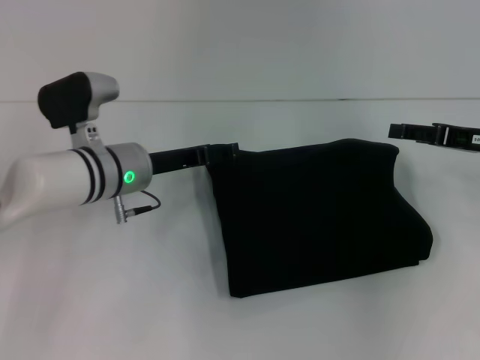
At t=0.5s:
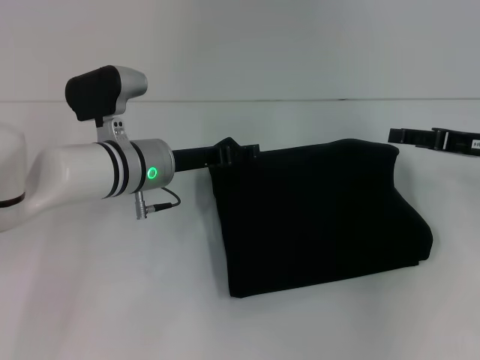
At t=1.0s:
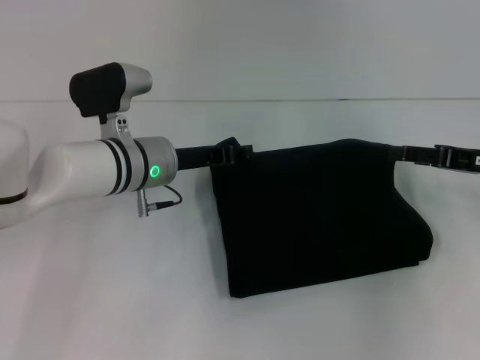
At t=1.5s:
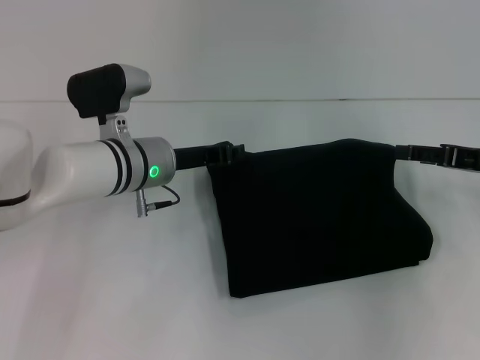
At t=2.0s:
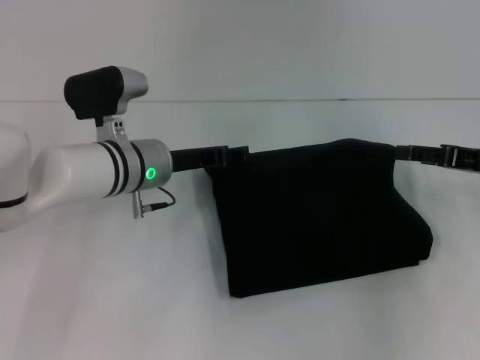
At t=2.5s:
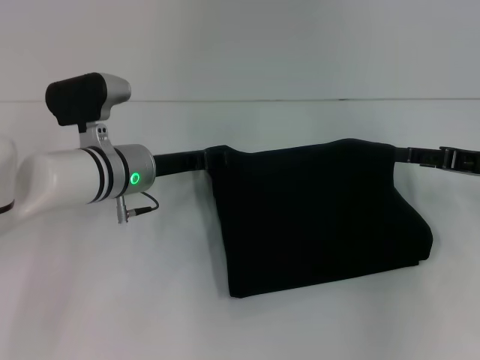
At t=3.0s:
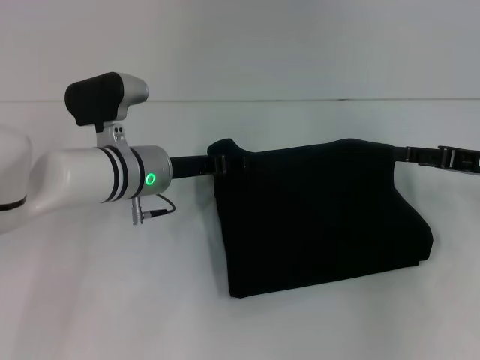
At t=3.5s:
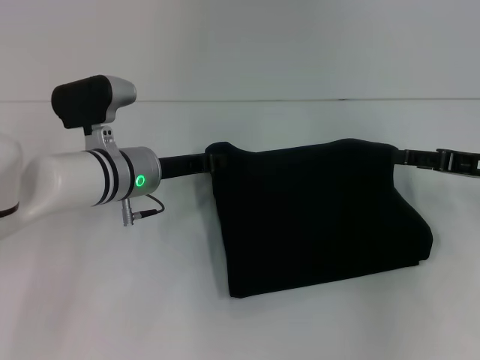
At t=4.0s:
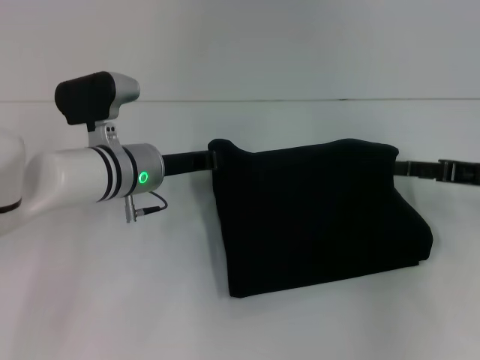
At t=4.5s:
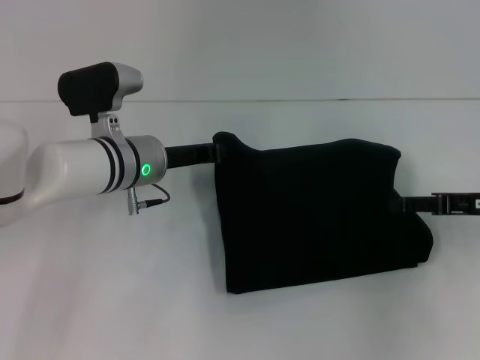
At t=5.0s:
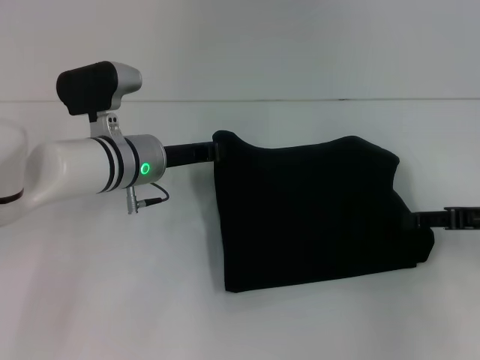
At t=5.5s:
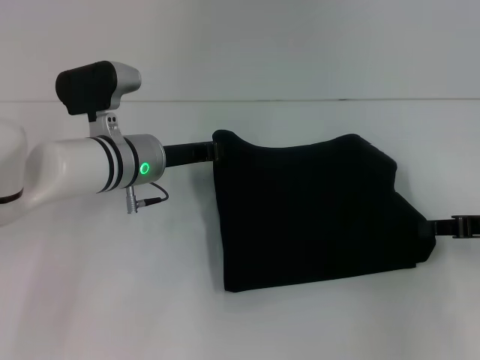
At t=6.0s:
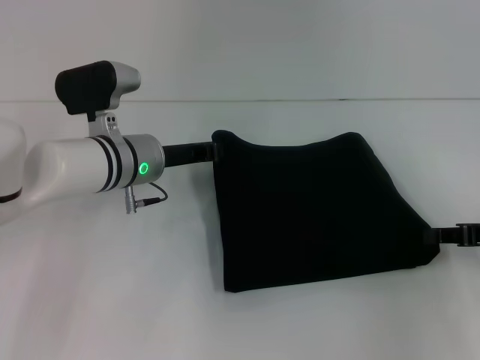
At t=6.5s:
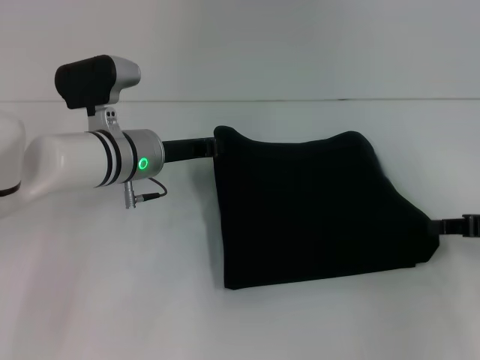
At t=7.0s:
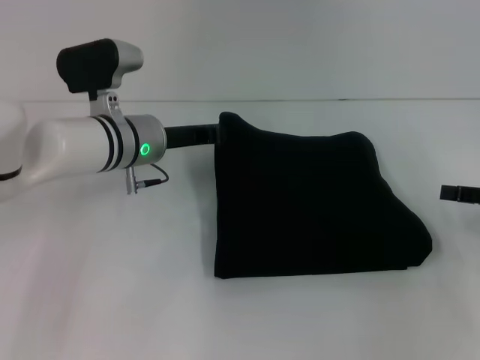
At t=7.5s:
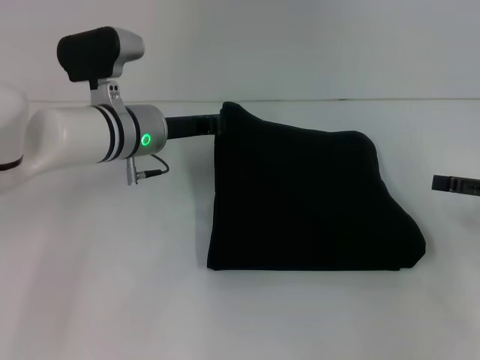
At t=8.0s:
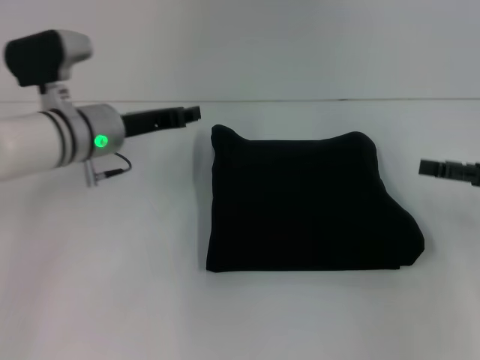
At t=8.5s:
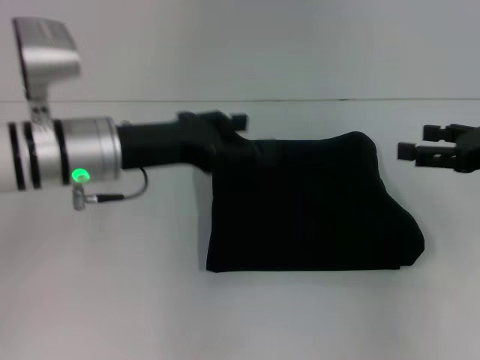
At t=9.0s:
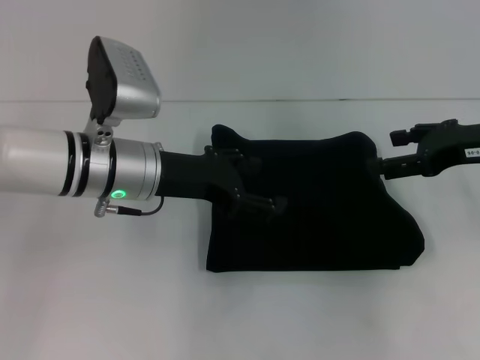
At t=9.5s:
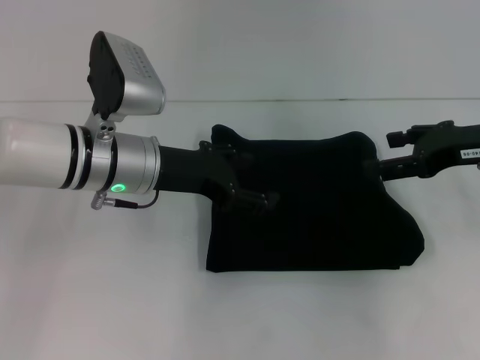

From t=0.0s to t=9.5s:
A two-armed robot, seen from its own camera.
From t=0.0s to t=2.0s: The left gripper closes up.
From t=2.0s to t=4.0s: The left gripper closes up.
From t=4.0s to t=5.5s: The right gripper closes its fingers.
From t=5.5s to t=7.5s: The right gripper opens.
From t=7.5s to t=9.5s: The left gripper is displaced backward by roughly 5 cm, and opens up, while the right gripper shifts approximately 10 cm to the left and upward.

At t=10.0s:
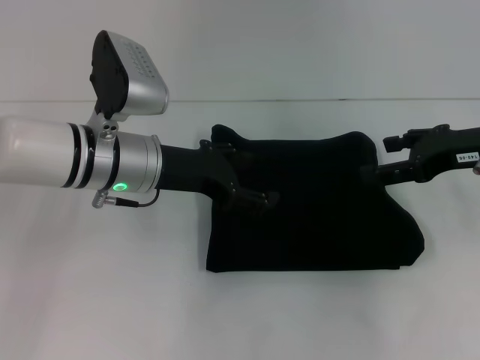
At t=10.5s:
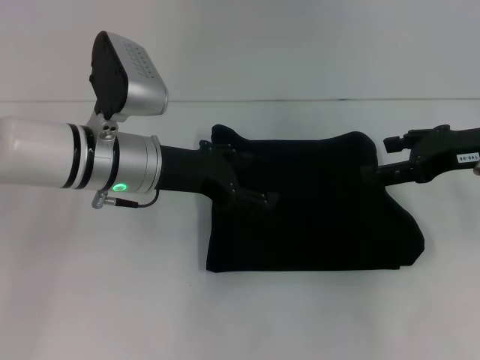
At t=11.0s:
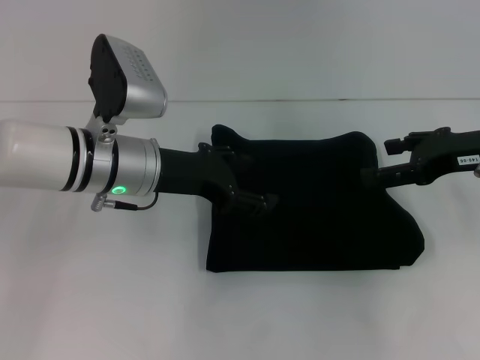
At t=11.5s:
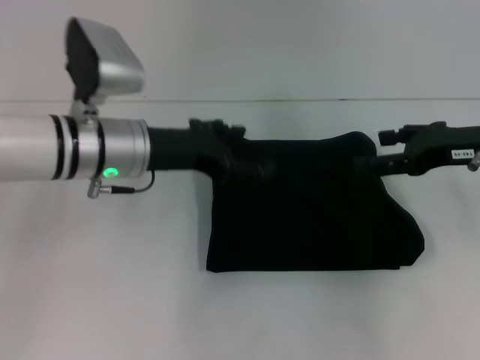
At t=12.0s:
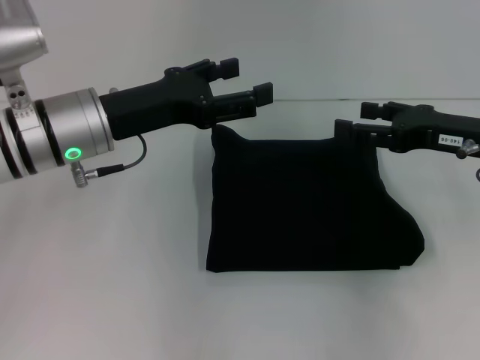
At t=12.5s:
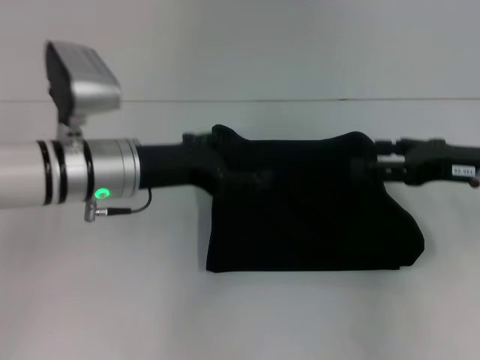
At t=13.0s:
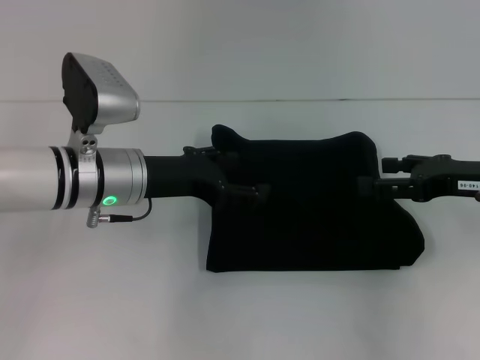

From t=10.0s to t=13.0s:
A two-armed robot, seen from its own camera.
From t=10.0s to t=11.5s: The grippers stay close to where they were, moving slightly.
